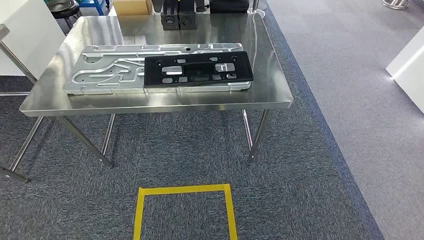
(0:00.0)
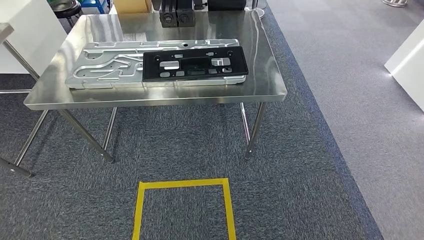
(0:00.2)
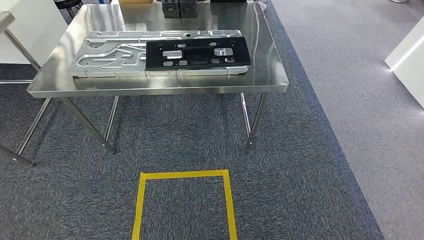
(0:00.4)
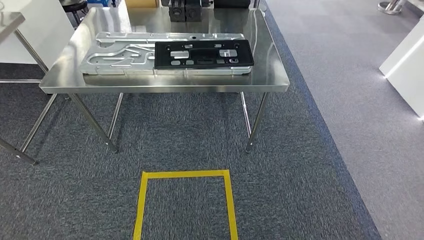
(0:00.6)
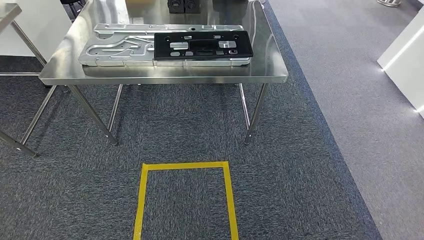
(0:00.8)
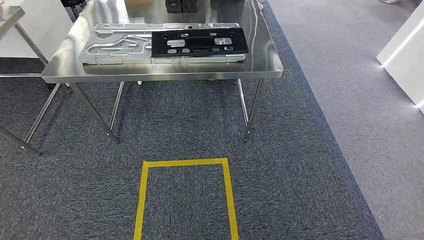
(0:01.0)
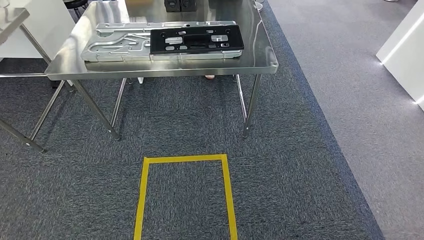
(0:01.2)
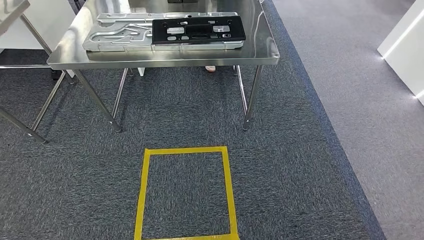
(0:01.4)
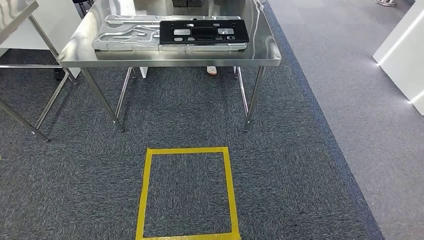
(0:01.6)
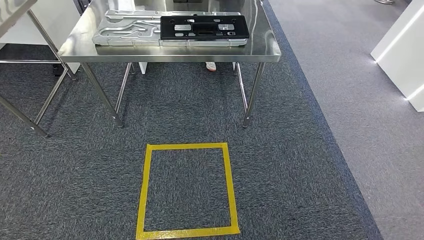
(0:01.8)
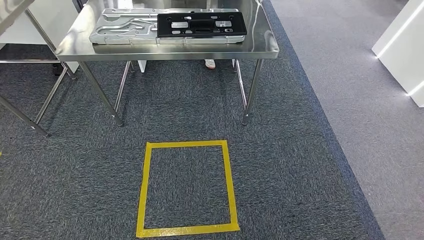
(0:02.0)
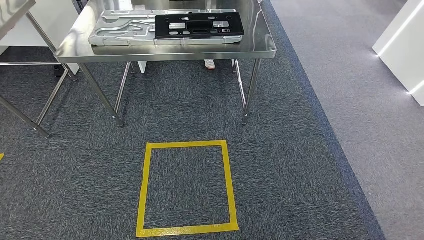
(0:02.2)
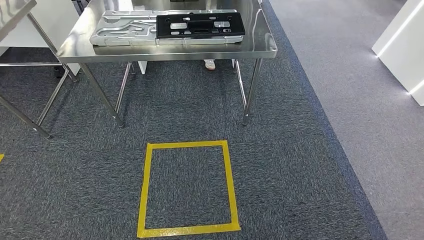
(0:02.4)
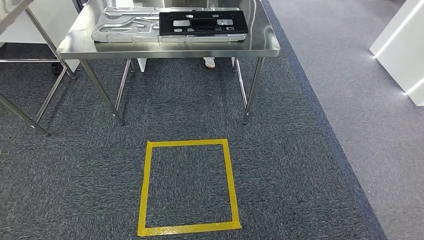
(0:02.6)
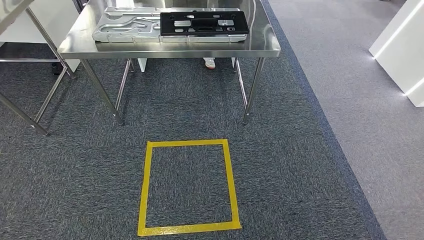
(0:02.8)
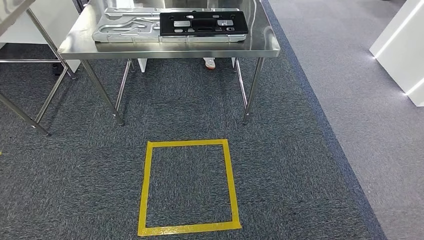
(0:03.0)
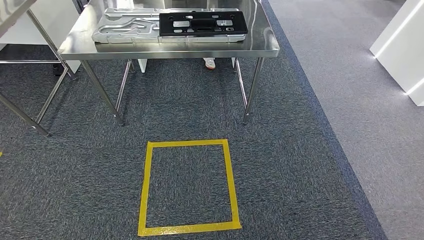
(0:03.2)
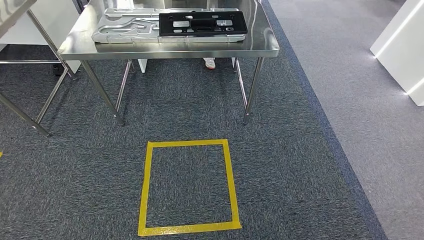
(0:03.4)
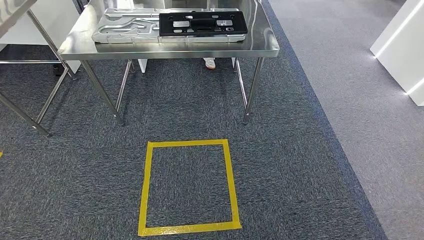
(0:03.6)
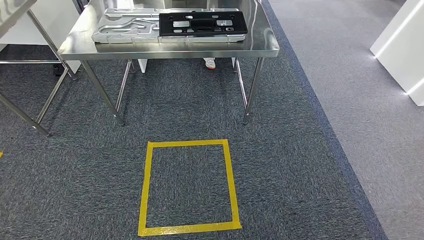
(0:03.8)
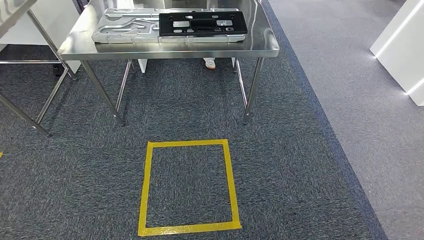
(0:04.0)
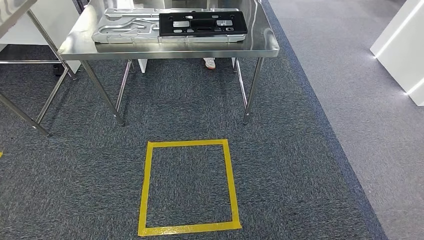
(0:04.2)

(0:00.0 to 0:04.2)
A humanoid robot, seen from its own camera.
Step, 0:00.0 - 0:04.2: Move to the initial position of the shelf.
0:01.4 - 0:04.2: The hands move only a little.
